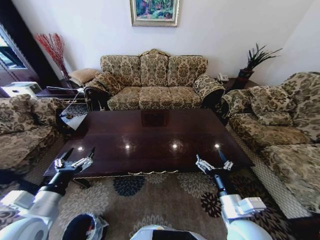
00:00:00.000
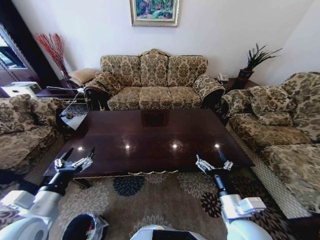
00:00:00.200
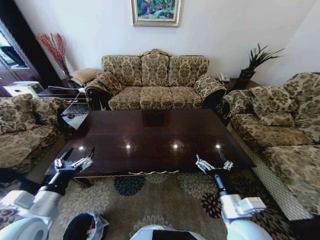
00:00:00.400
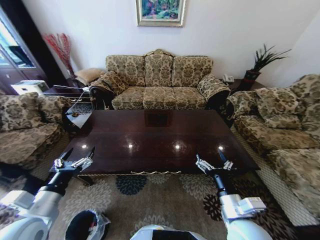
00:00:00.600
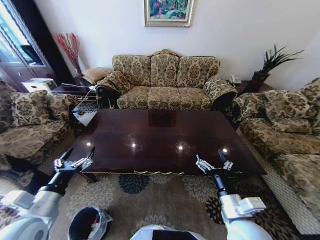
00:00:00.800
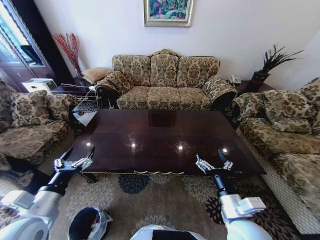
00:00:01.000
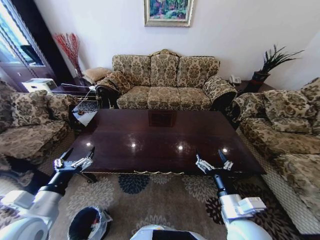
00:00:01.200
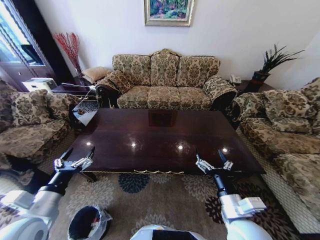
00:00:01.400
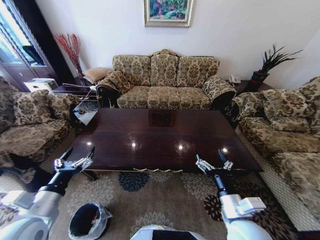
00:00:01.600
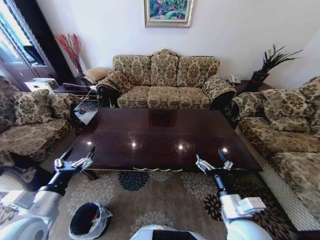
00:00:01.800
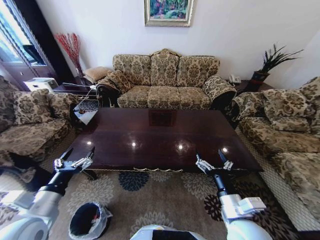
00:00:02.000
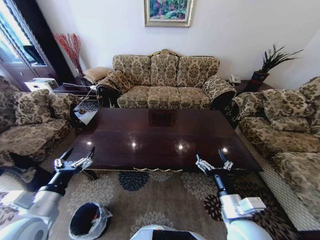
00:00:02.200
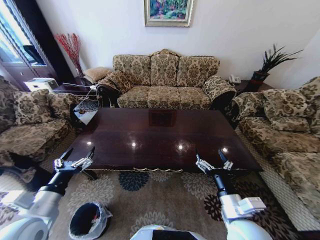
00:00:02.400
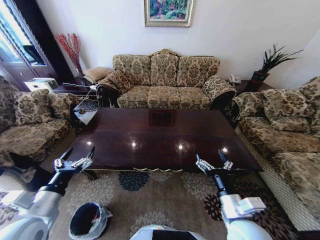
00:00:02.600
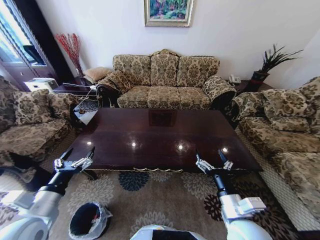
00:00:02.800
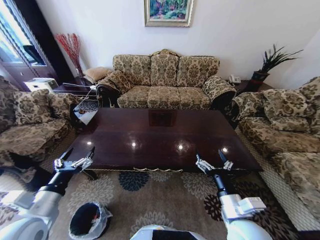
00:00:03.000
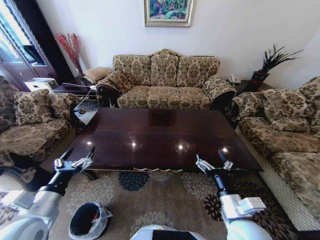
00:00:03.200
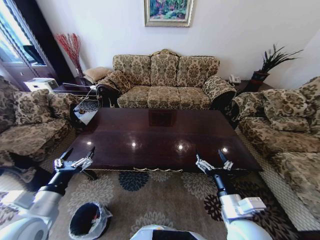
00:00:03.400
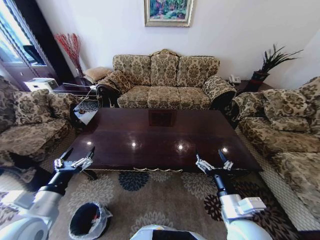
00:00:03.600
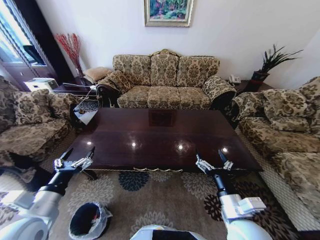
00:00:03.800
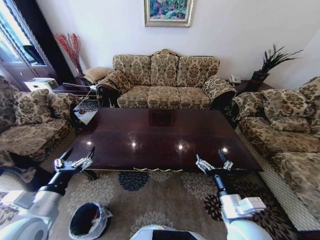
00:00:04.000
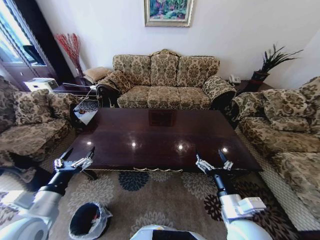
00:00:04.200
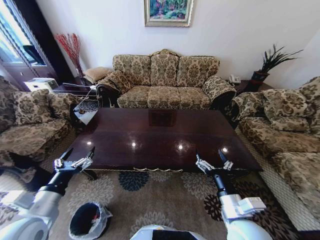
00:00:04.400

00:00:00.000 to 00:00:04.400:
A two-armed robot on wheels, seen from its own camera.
Task of the whole recording: Move to the front of the table and place the trash on the table into the trash bin.
00:00:01.400 to 00:00:04.400: Neither gripper changes place.
